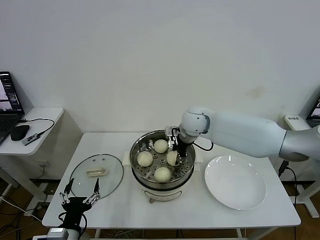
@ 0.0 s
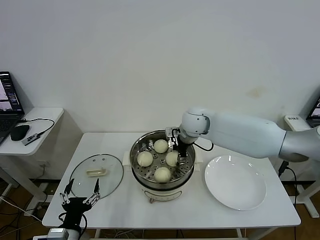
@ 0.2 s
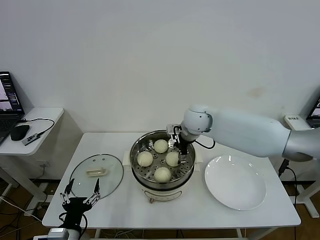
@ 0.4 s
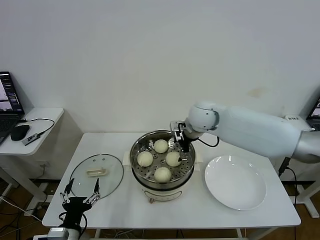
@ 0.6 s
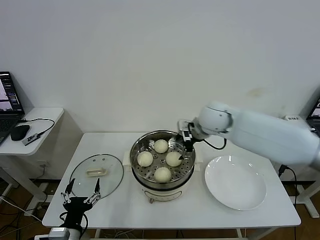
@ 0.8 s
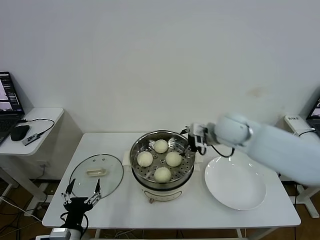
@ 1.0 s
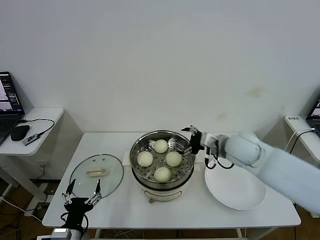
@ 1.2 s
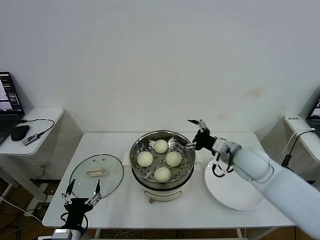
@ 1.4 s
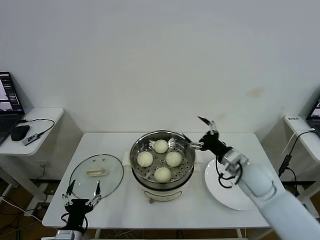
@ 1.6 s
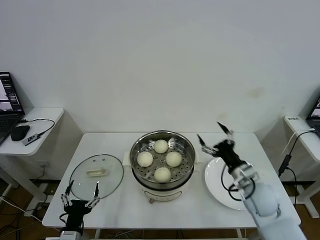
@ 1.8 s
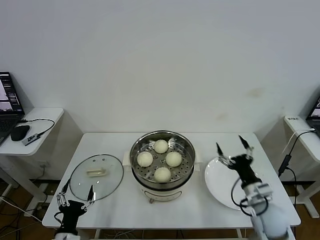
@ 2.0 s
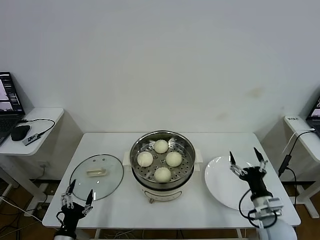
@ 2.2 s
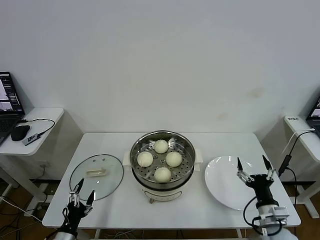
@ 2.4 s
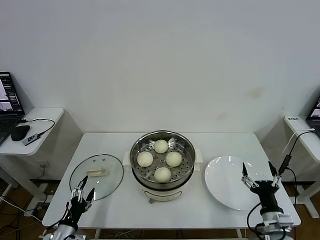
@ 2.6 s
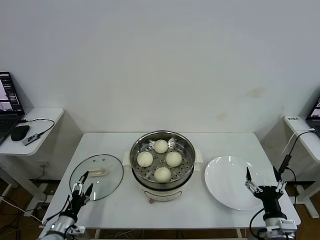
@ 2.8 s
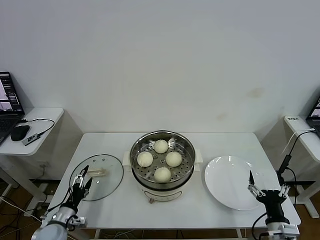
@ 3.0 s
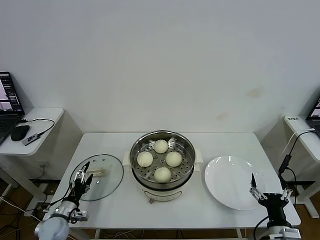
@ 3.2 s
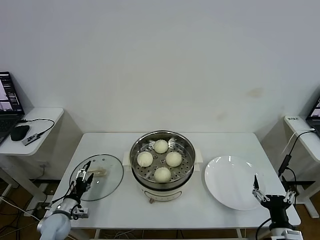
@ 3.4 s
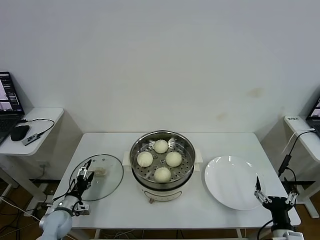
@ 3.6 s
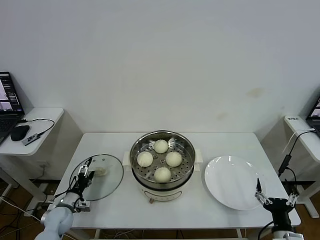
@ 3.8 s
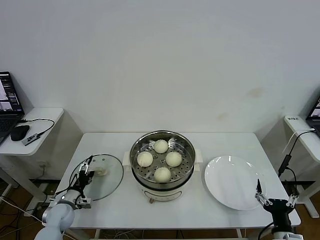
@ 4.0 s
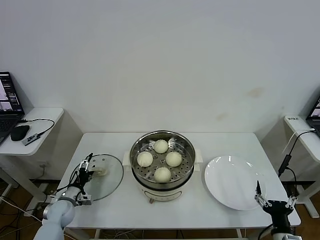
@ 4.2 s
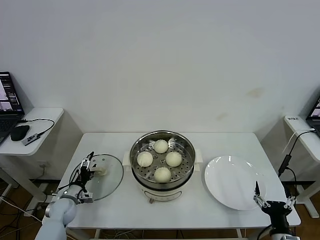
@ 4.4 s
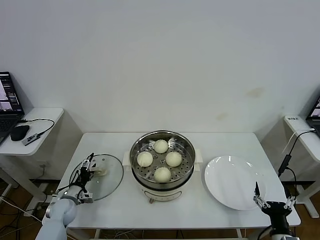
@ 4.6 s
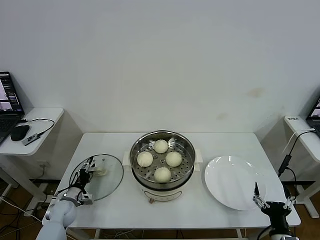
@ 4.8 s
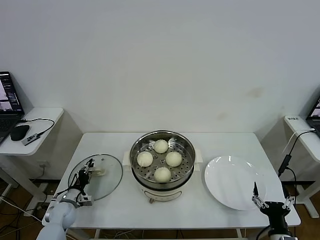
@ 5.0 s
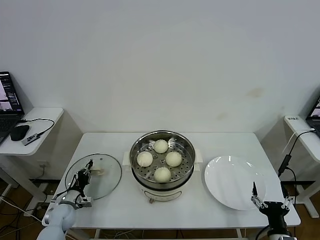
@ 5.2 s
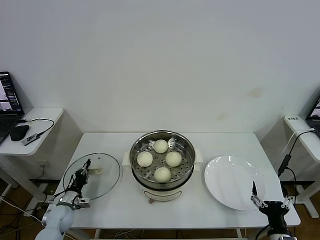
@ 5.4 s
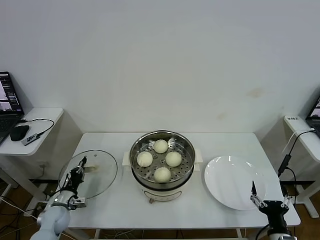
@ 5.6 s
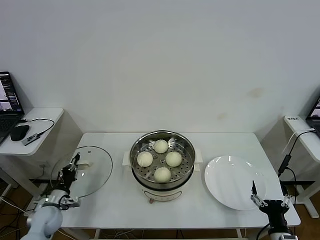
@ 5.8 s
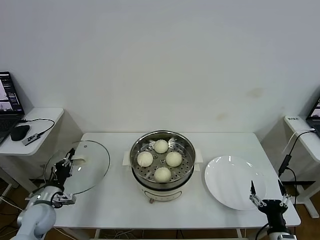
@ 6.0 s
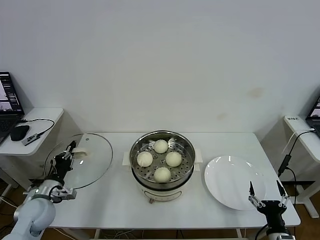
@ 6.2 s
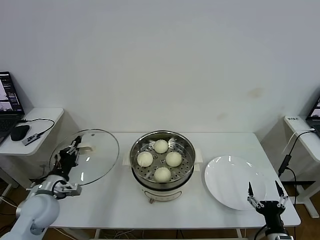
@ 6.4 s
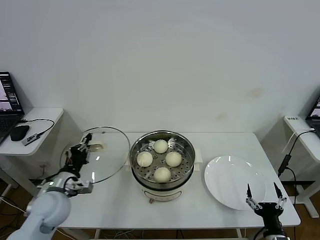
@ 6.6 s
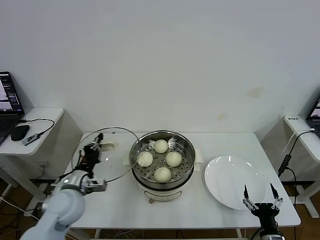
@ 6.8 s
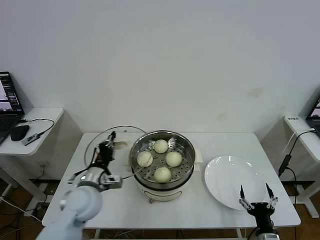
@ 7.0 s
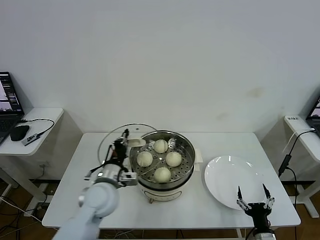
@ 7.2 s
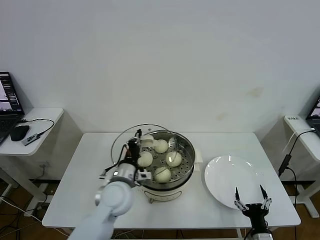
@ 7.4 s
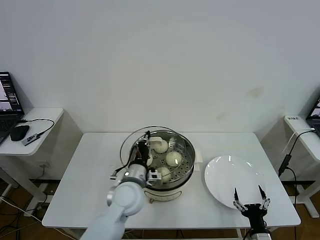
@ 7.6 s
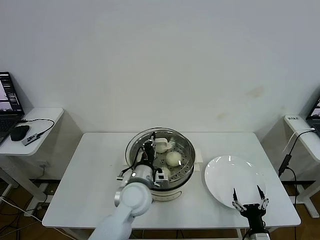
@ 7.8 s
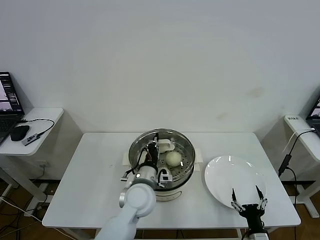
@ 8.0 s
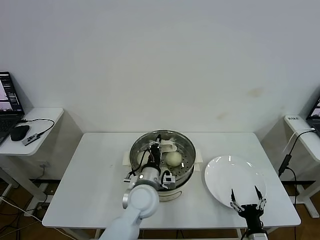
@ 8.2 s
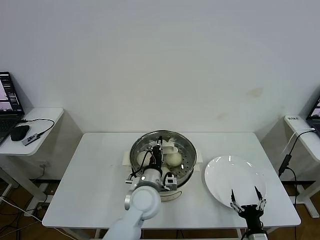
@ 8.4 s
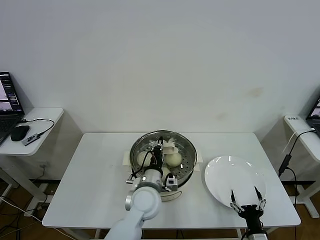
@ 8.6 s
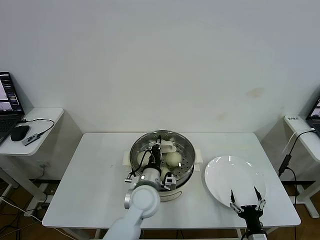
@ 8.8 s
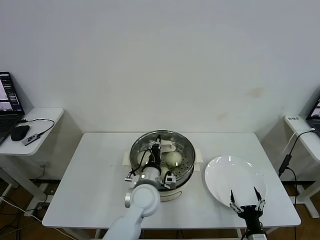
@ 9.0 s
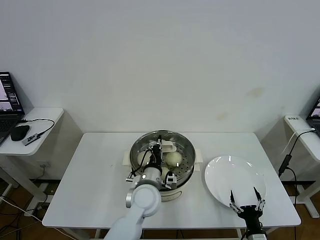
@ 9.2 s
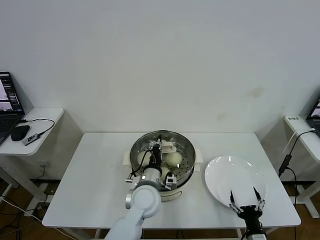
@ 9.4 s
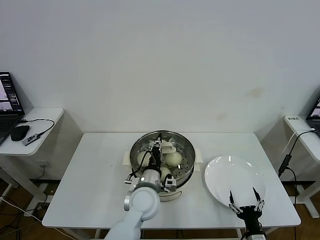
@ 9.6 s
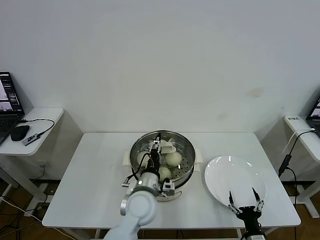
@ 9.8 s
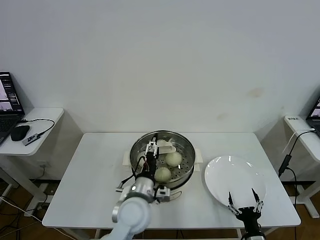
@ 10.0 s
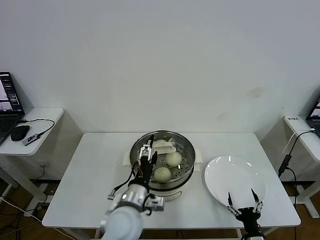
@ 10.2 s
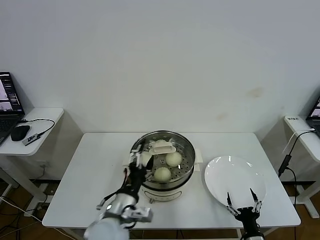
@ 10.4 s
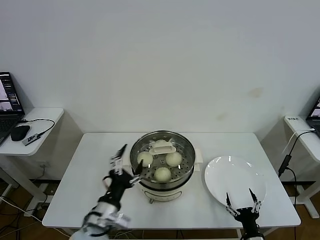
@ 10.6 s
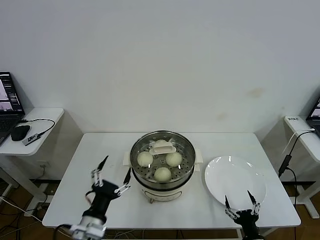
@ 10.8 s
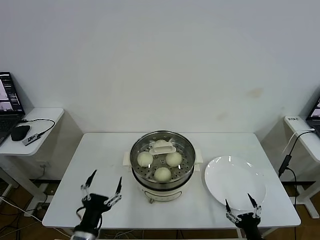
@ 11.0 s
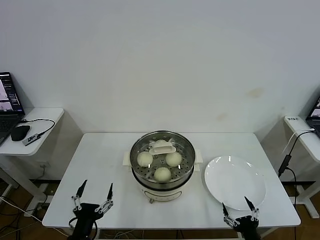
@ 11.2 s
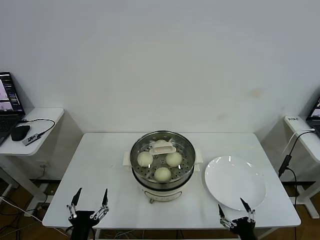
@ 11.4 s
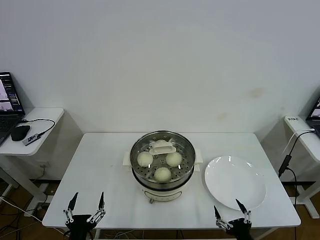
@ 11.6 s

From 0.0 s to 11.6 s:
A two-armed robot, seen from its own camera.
Task of the whole recording: take steamed baozi put them in steamer then cover it.
Step, from 0.4 s to 5.4 s: Grasp the pot lid with left gripper.
Step, from 5.6 s to 9.6 s: Place the pot lid on the steamer with left gripper.
From 0.0 s to 1.4 s: The right gripper goes about 20 cm to the right and backward, and opens up.
From 1.4 s to 2.8 s: The left gripper moves to the left, downward and forward, roughly 15 cm; the right gripper goes some 30 cm backward, downward and to the right.
From 2.8 s to 4.4 s: The right gripper changes place by approximately 5 cm. The left gripper moves forward, approximately 15 cm.
From 4.4 s to 5.8 s: The left gripper changes place by roughly 5 cm, and closes up.
From 5.8 s to 7.2 s: The left gripper shifts some 30 cm to the right and upward.
From 7.2 s to 8.8 s: The left gripper travels to the right by some 15 cm.
From 8.8 s to 10.2 s: The left gripper moves backward, about 5 cm, and opens.
From 10.2 s to 11.6 s: The right gripper shifts approximately 5 cm upward, while the left gripper goes about 25 cm backward, to the left and downward.
